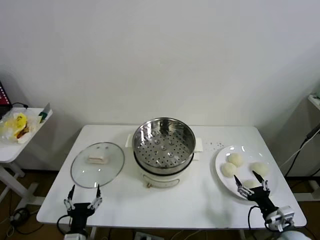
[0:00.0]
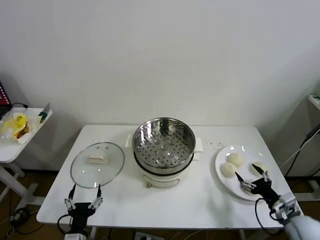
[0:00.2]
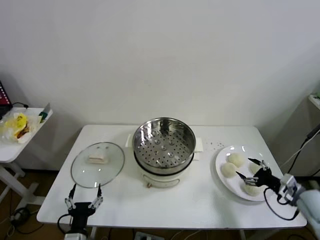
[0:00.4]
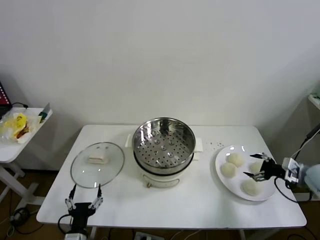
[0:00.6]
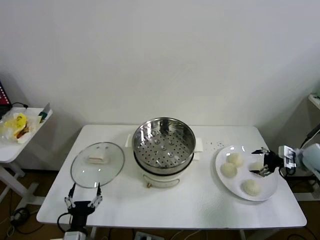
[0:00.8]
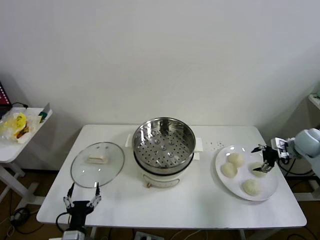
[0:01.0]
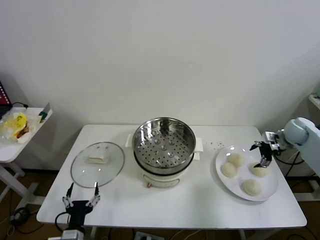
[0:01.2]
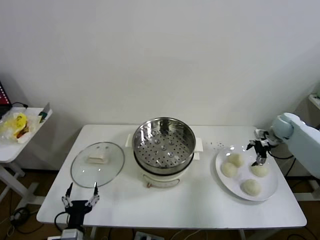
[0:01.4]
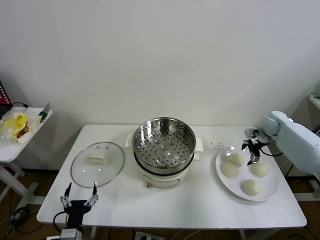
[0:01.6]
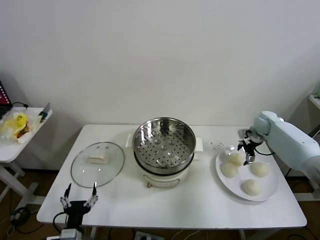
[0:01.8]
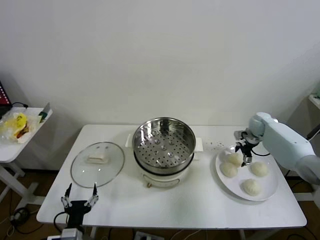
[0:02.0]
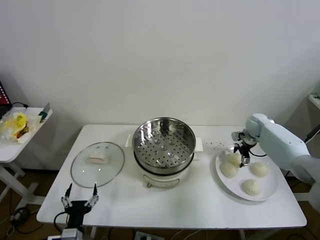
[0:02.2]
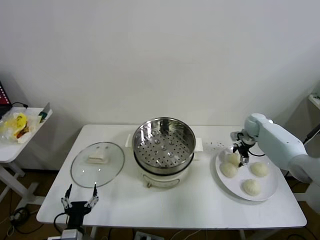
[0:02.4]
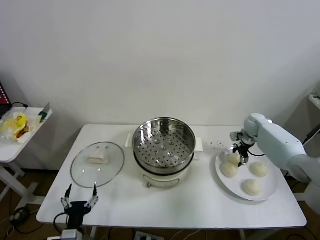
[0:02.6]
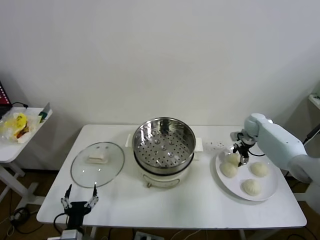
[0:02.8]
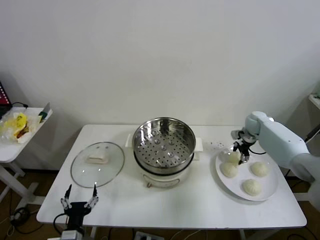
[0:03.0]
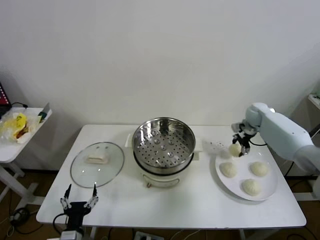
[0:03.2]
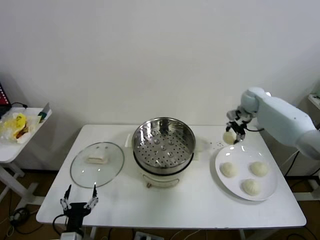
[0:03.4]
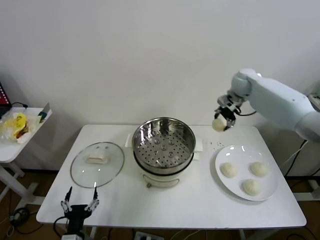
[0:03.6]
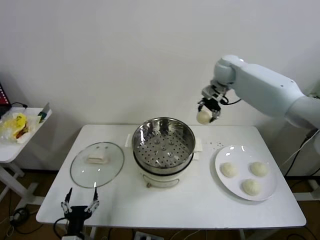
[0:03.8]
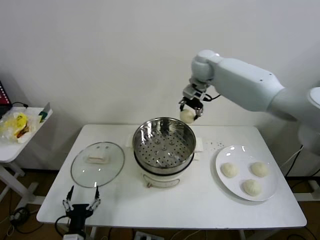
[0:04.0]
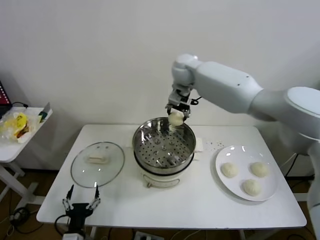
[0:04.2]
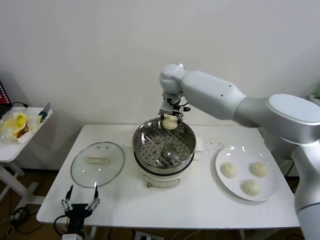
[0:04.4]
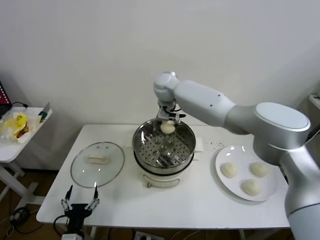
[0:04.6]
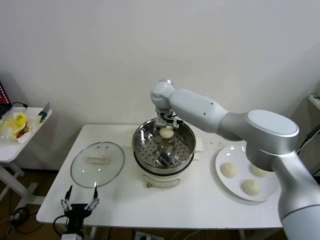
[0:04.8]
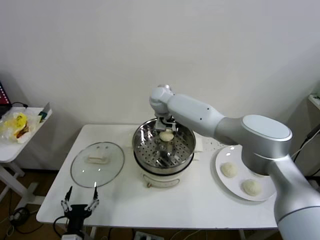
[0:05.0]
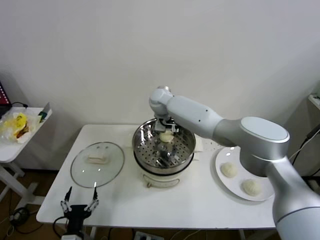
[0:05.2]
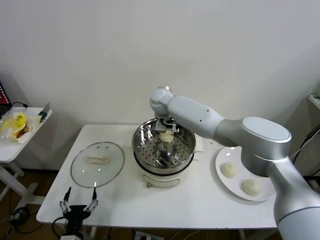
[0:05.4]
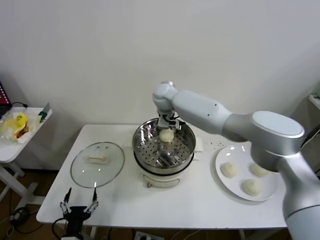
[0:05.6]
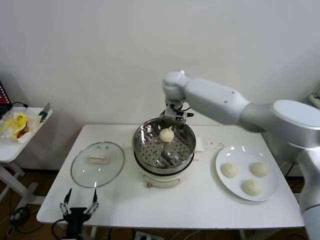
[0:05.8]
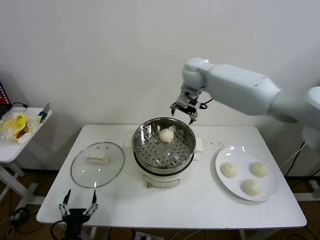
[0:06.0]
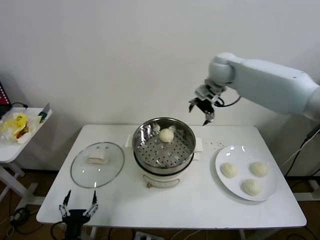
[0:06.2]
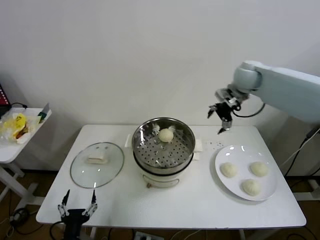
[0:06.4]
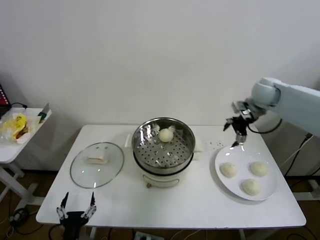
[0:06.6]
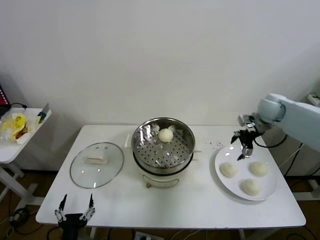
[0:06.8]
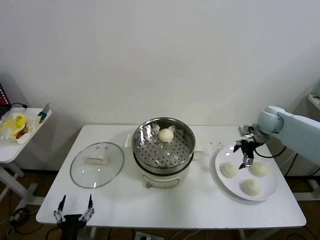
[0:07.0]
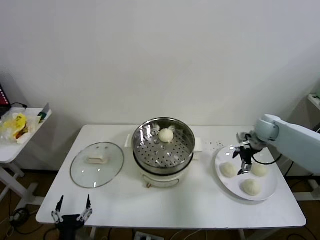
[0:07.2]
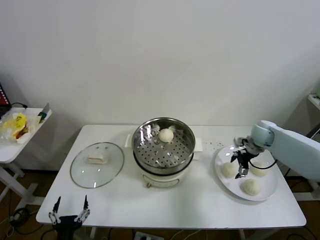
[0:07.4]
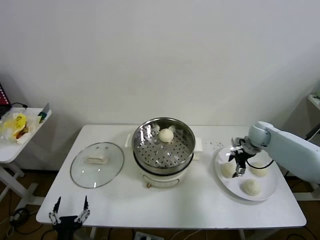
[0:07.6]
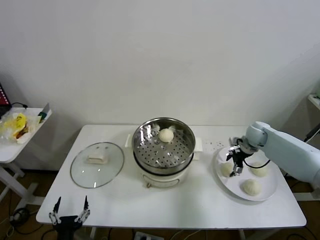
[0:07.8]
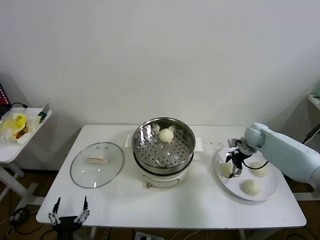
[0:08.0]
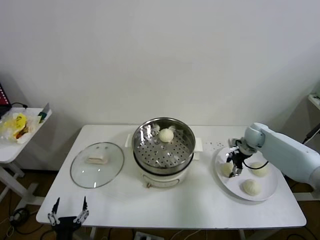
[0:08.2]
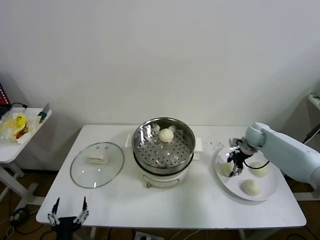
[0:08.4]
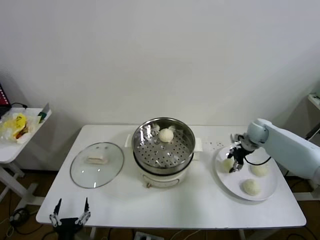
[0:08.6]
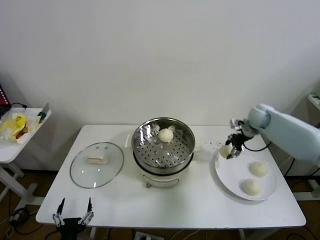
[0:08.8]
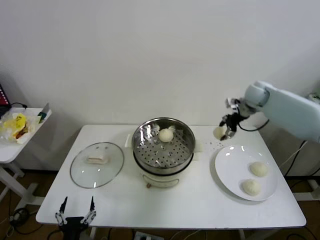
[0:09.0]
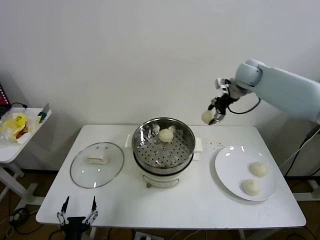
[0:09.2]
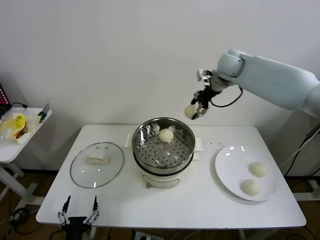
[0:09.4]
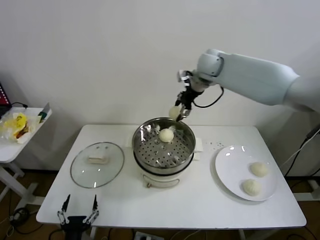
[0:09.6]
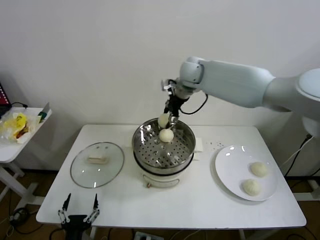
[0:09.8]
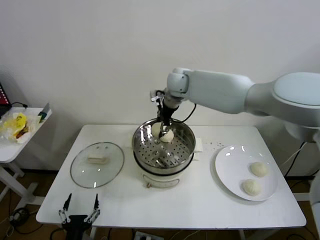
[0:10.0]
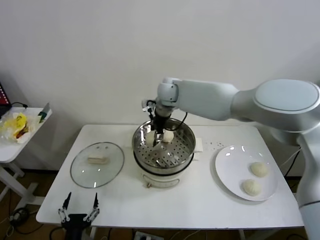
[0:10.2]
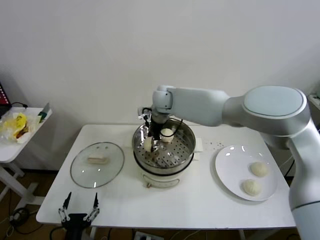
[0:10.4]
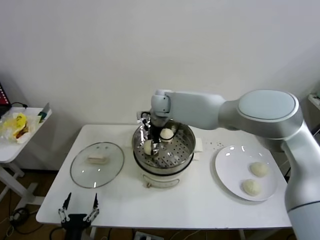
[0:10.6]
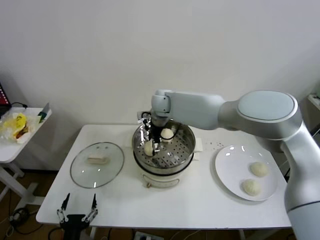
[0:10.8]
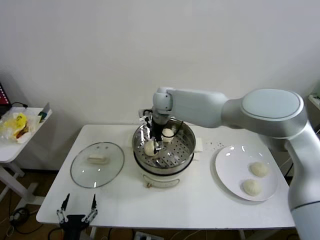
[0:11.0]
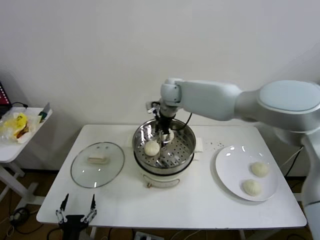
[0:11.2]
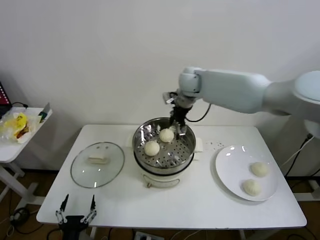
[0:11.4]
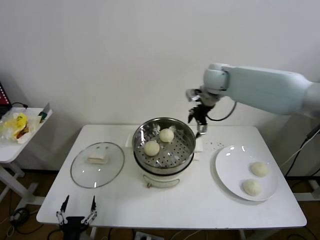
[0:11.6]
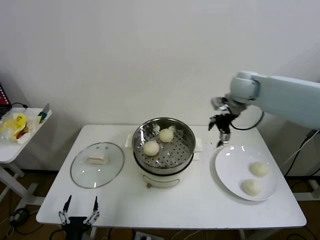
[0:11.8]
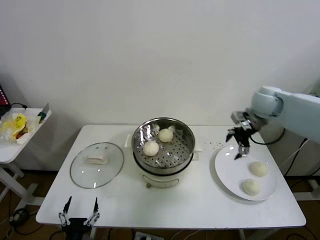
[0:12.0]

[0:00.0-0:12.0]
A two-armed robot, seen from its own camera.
Step, 0:00.0 to 0:02.6: Grasp the baozi in the plate with right gripper.
Step, 0:03.0 to 0:05.2: Place the baozi on the steamer with right gripper.
Step, 0:05.4 to 0:08.2: Grasp the baozi in the plate with right gripper.
Step, 0:08.4 to 0:10.6: Place the baozi on the steamer with right gripper.
0:01.6 to 0:03.0: The right gripper closes up.
0:03.0 to 0:04.4: The right gripper shifts about 40 cm to the left and upward.
0:04.4 to 0:06.0: The right gripper goes some 15 cm to the right and upward, and opens up.
0:06.0 to 0:07.6: The right gripper is displaced downward and to the right by about 35 cm.
0:07.6 to 0:09.0: The right gripper is displaced upward by about 20 cm, and closes its fingers.
0:09.0 to 0:10.4: The right gripper moves to the left, approximately 35 cm.
0:10.4 to 0:12.0: The right gripper moves to the right, approximately 35 cm, and opens its fingers.

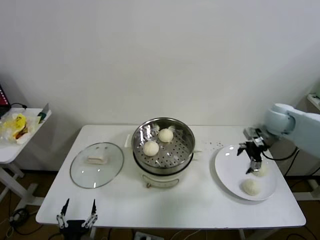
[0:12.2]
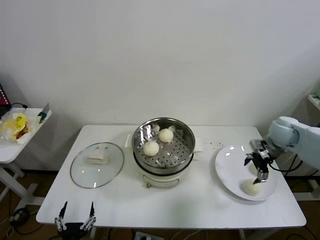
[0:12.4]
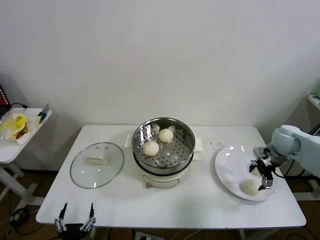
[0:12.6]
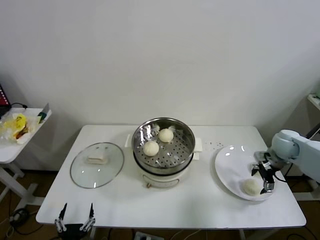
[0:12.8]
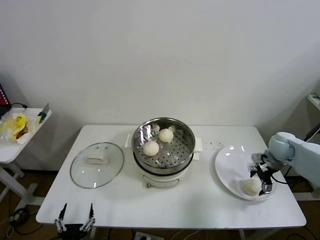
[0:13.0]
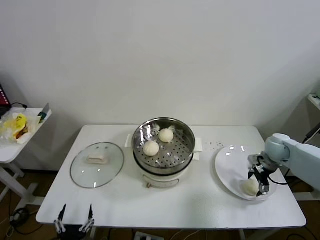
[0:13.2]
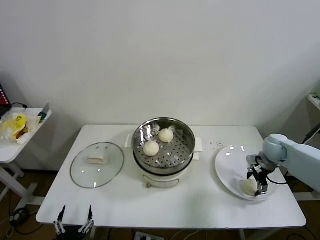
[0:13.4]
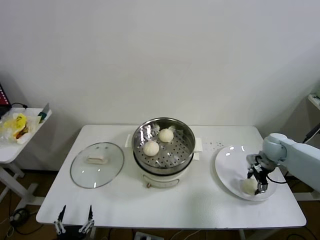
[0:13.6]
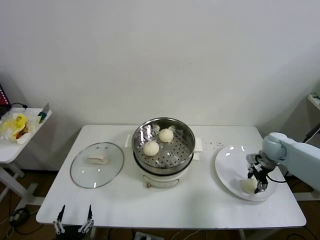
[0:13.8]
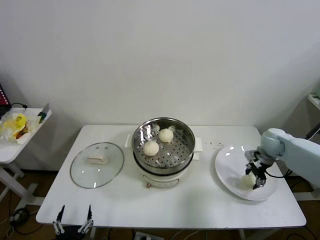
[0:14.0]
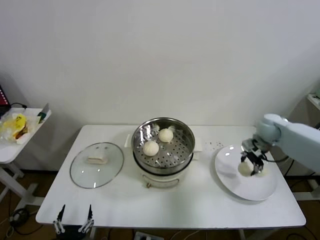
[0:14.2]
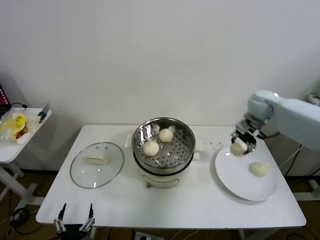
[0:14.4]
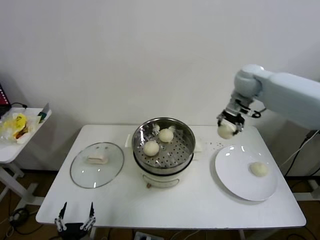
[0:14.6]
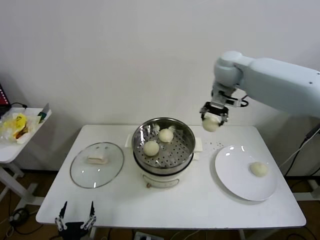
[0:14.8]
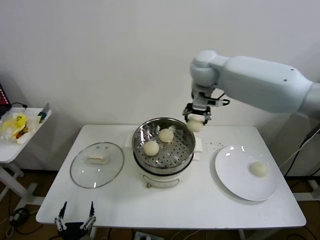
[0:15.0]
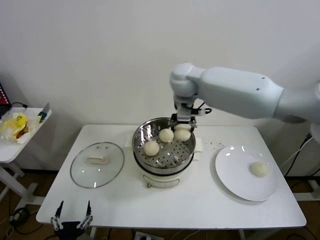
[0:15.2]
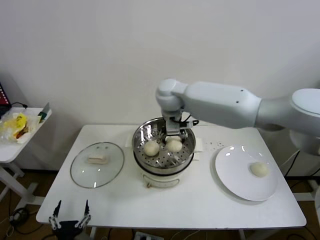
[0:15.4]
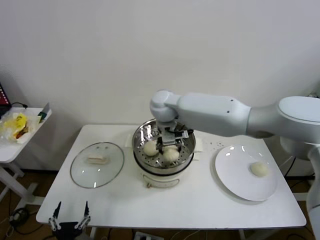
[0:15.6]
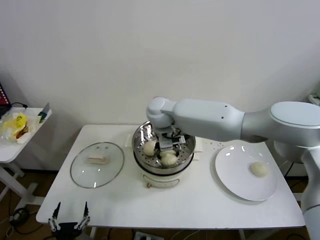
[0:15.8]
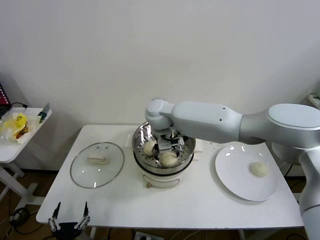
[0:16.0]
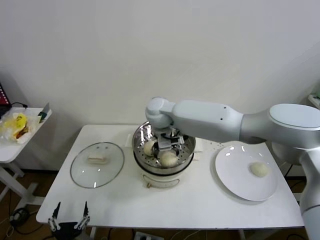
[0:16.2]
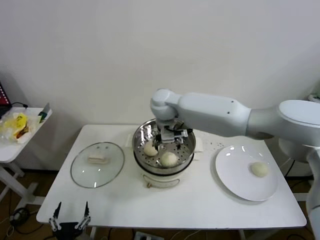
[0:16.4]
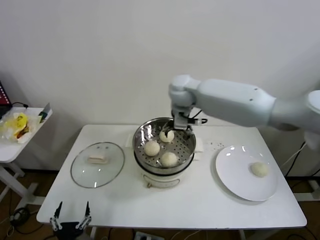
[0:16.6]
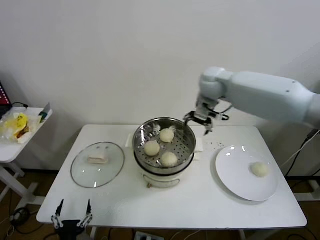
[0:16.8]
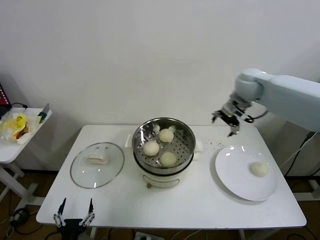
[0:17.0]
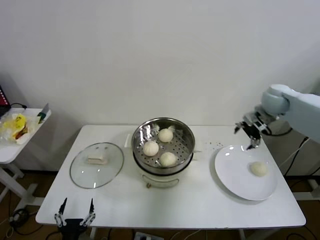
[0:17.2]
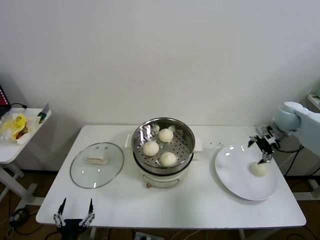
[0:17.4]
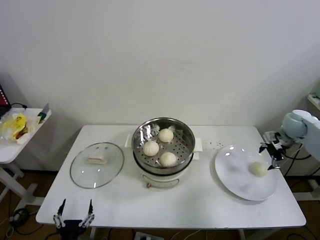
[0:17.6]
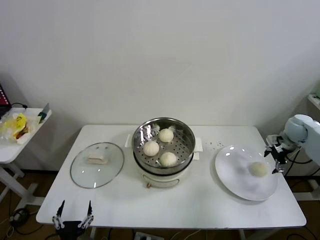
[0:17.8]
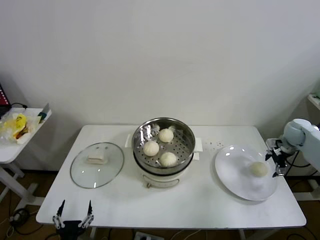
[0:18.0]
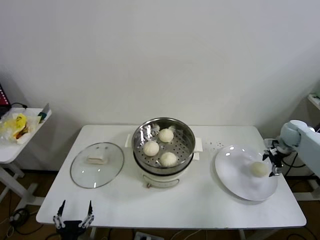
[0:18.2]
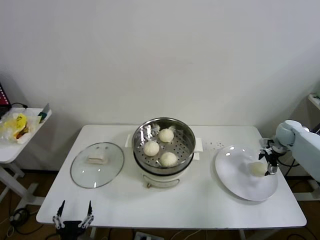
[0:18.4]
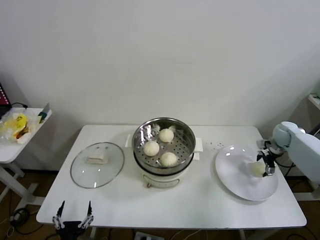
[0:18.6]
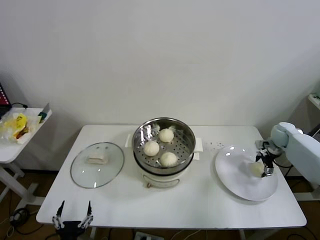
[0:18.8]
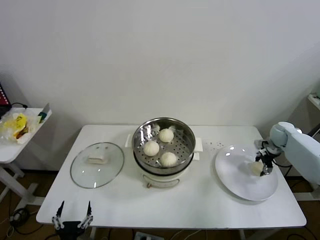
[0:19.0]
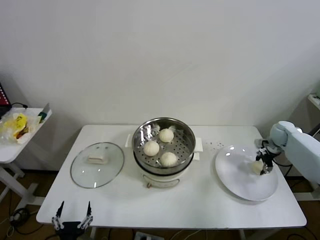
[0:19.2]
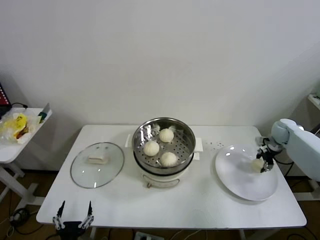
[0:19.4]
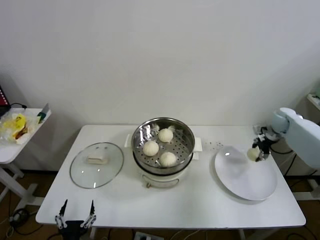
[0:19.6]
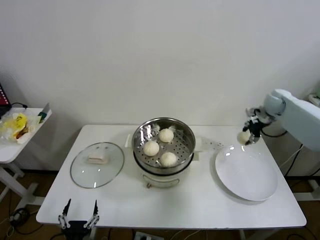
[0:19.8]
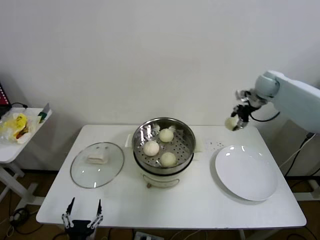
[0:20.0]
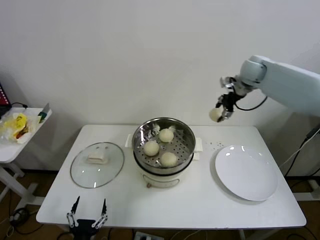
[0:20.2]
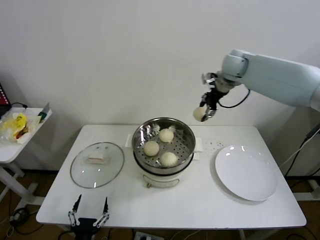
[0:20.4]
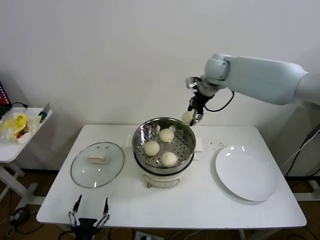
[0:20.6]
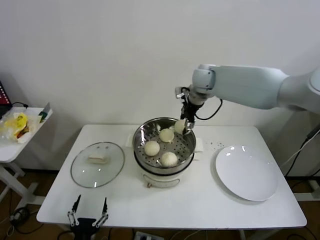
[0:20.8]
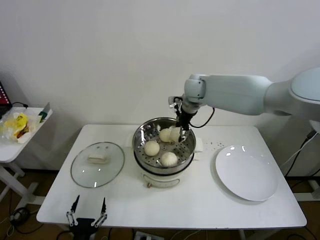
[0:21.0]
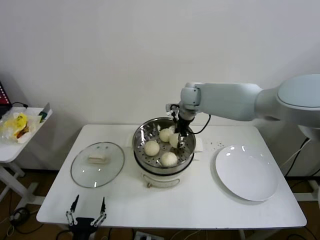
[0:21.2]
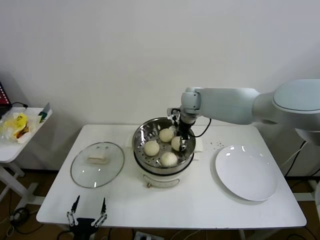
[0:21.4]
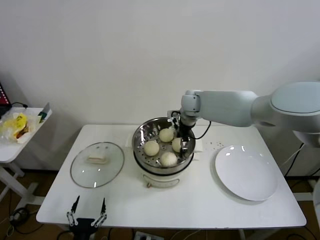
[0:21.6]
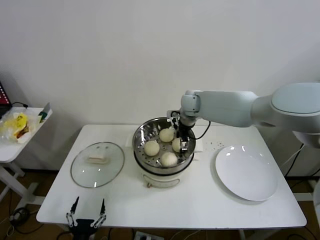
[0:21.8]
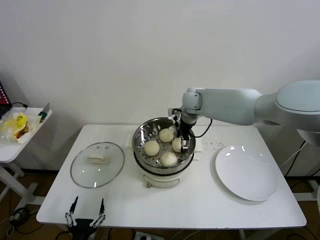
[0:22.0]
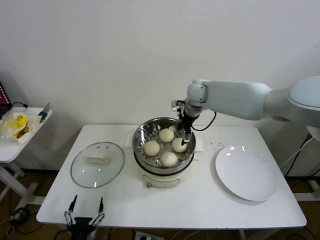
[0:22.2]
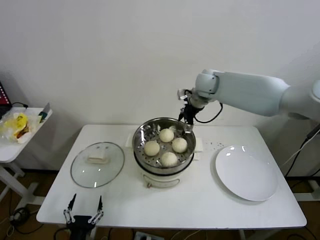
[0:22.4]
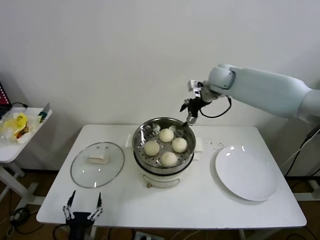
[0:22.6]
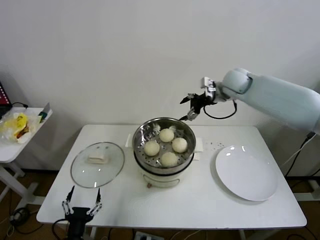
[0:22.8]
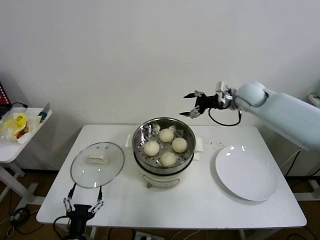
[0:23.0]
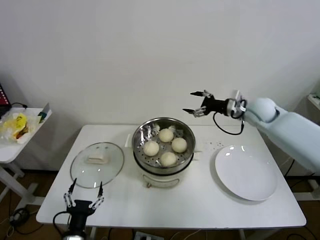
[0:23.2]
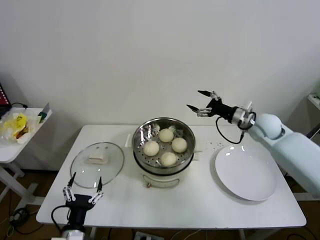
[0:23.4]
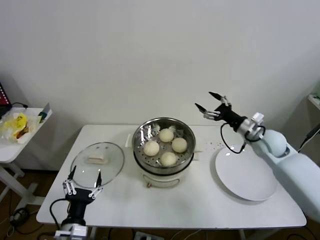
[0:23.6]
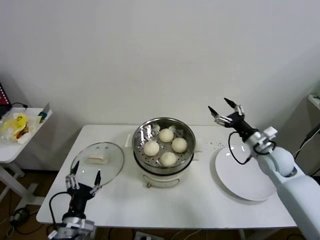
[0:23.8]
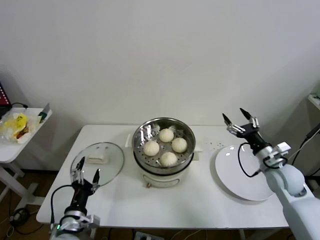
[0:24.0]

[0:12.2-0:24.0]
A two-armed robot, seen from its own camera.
Step, 0:13.8 to 0:16.2: Place the baozi on the steamer with right gripper.
Step, 0:16.4 to 0:18.8: Grasp the baozi in the plate with right gripper.
Step, 0:19.0 to 0:21.6: Place the baozi on the steamer with right gripper.
0:12.2 to 0:13.6: The right gripper goes approximately 10 cm downward, and closes.
0:13.6 to 0:15.2: The right gripper shifts approximately 40 cm to the left and upward.
0:15.2 to 0:16.6: The right gripper goes to the left and returns, some 5 cm each way, and opens its fingers.
0:16.6 to 0:18.2: The right gripper heads to the right and downward, covering approximately 50 cm.
0:18.2 to 0:19.6: The right gripper shifts by approximately 5 cm, and closes up.
0:19.6 to 0:21.0: The right gripper heads to the left, covering approximately 35 cm.
0:21.0 to 0:22.6: The right gripper goes roughly 10 cm to the right, and opens up.
0:22.6 to 0:24.0: The left gripper moves forward, about 10 cm. Meanwhile the right gripper heads backward, downward and to the right, covering roughly 35 cm.
